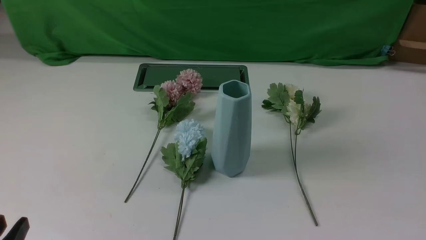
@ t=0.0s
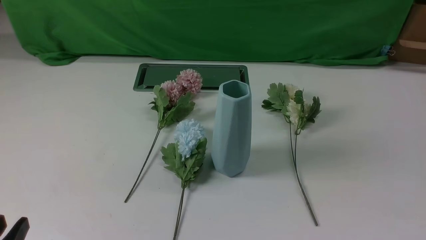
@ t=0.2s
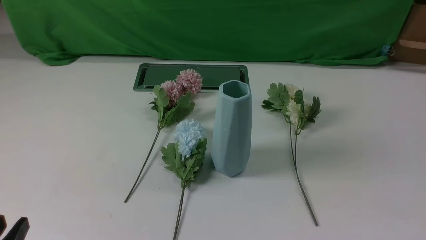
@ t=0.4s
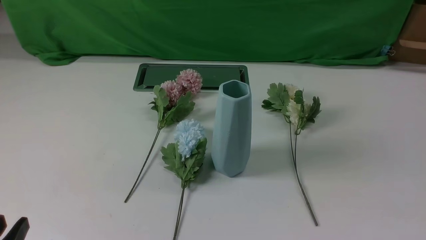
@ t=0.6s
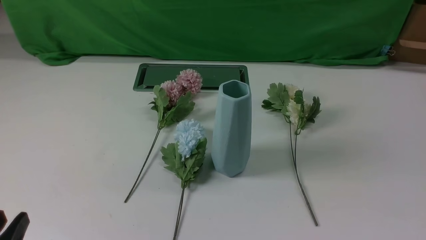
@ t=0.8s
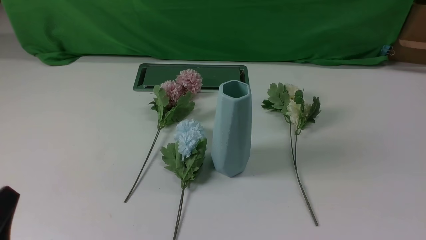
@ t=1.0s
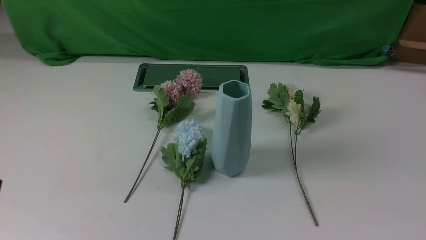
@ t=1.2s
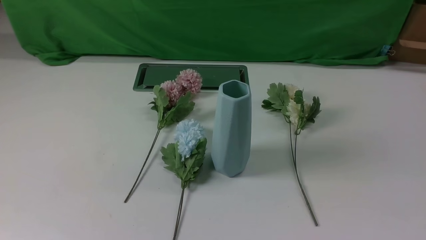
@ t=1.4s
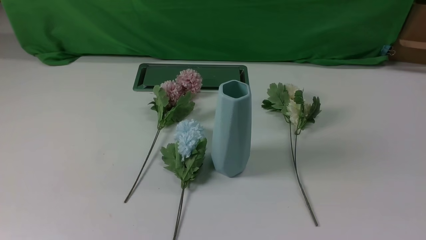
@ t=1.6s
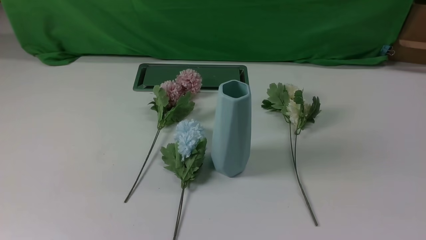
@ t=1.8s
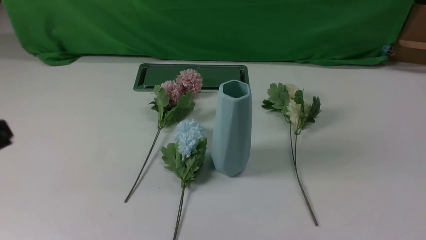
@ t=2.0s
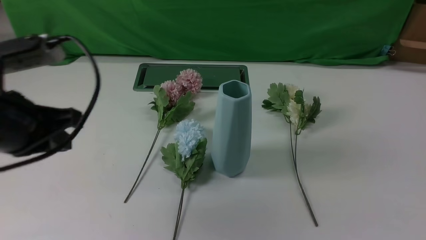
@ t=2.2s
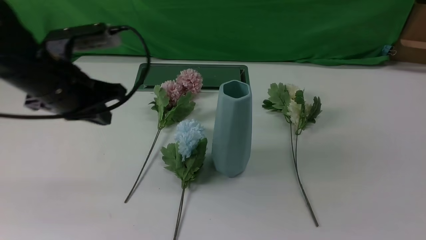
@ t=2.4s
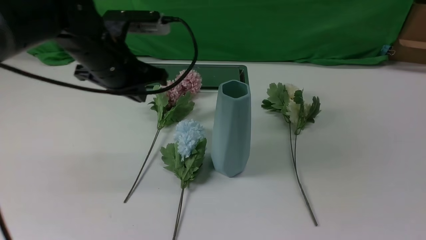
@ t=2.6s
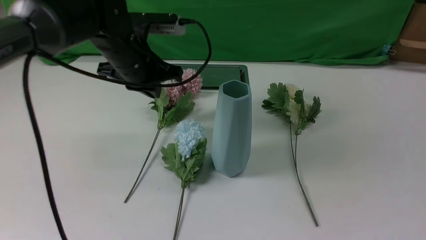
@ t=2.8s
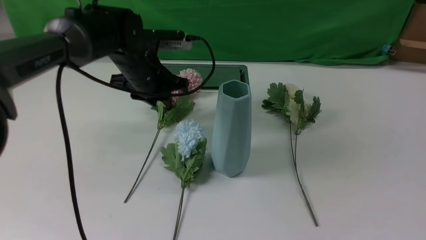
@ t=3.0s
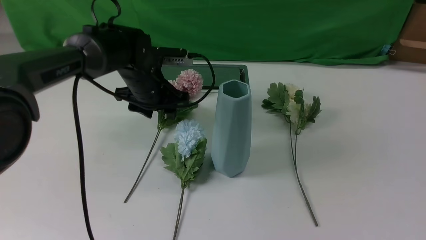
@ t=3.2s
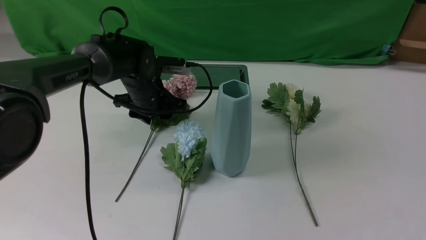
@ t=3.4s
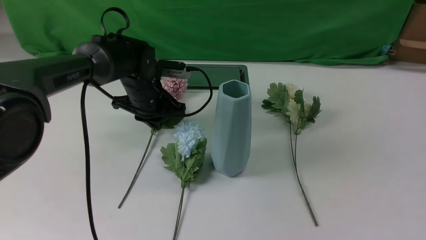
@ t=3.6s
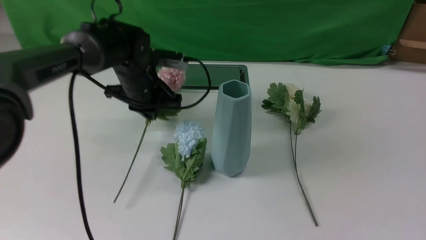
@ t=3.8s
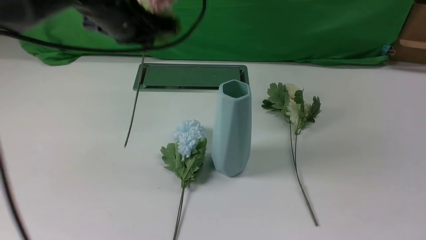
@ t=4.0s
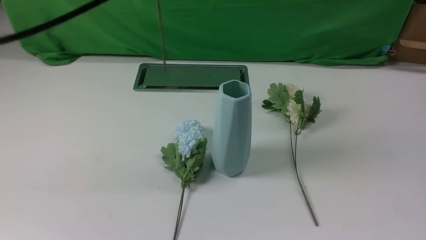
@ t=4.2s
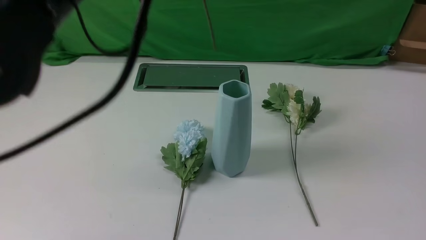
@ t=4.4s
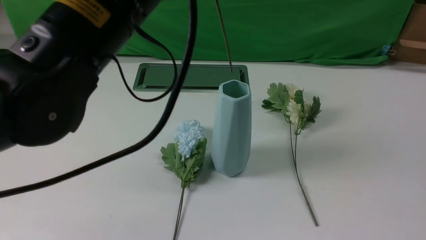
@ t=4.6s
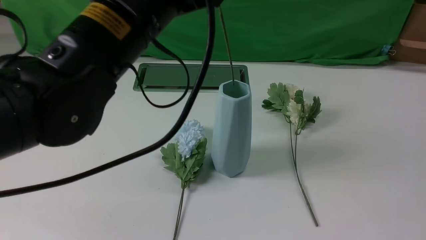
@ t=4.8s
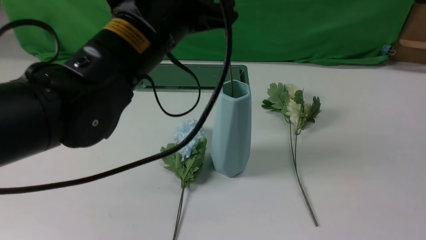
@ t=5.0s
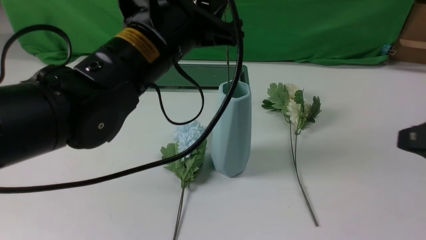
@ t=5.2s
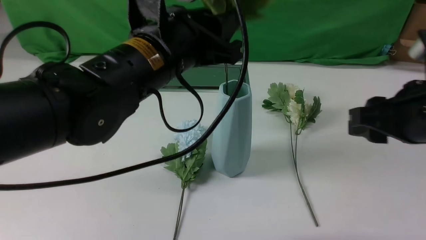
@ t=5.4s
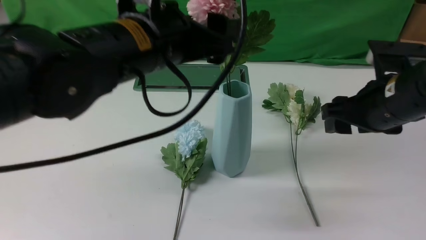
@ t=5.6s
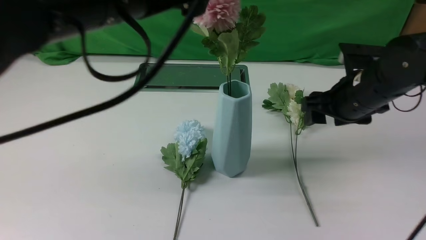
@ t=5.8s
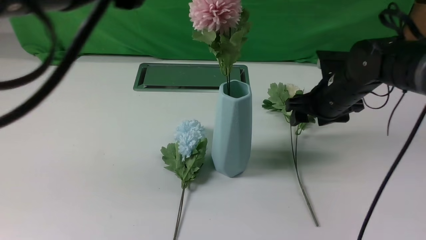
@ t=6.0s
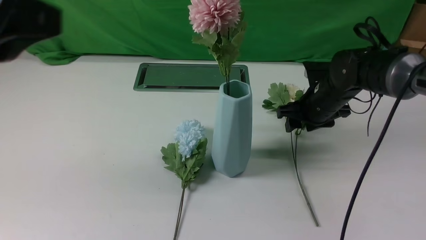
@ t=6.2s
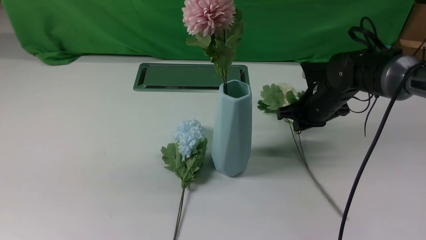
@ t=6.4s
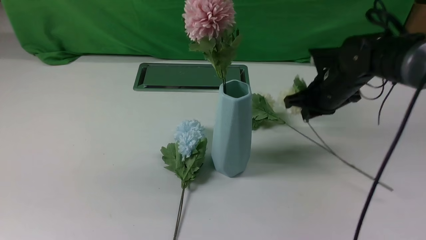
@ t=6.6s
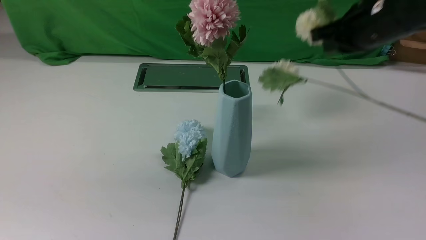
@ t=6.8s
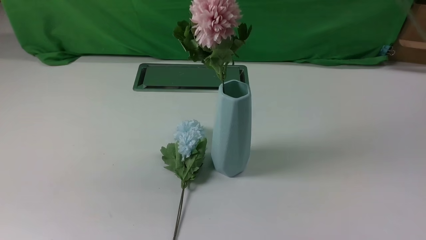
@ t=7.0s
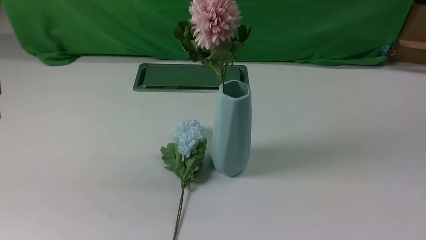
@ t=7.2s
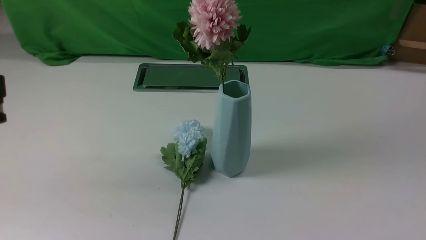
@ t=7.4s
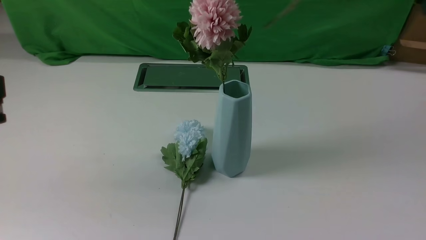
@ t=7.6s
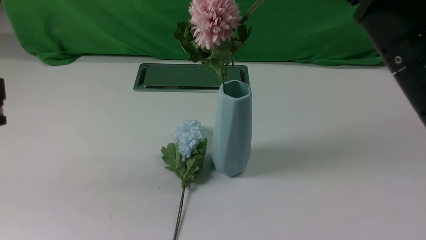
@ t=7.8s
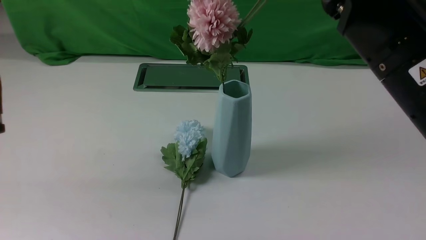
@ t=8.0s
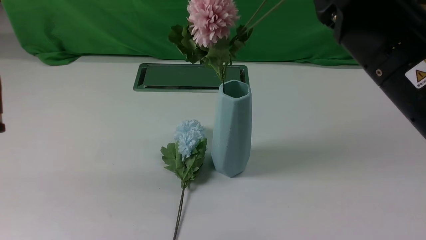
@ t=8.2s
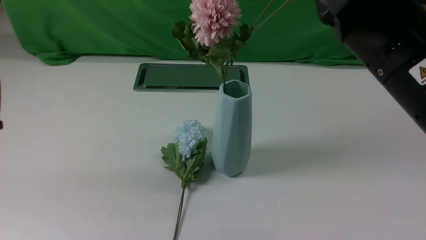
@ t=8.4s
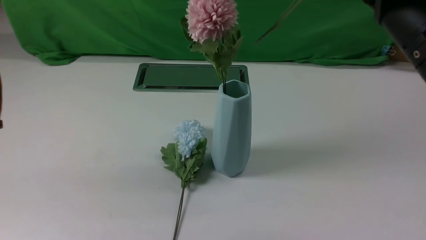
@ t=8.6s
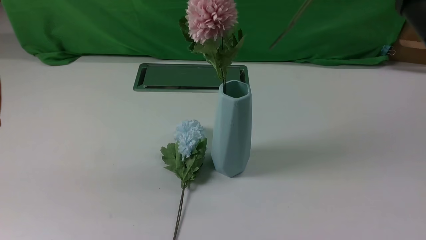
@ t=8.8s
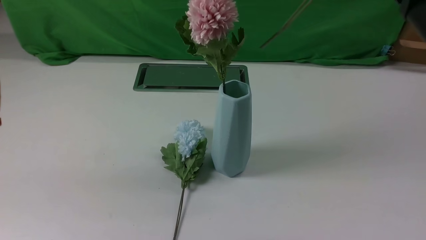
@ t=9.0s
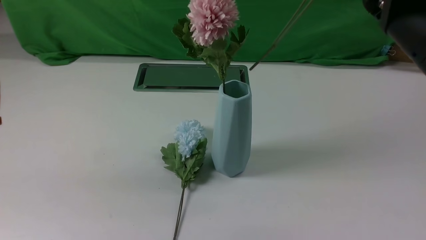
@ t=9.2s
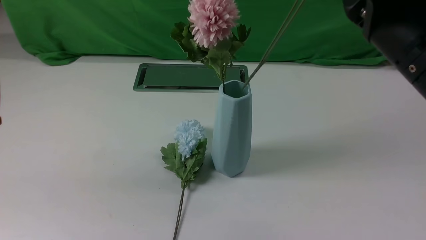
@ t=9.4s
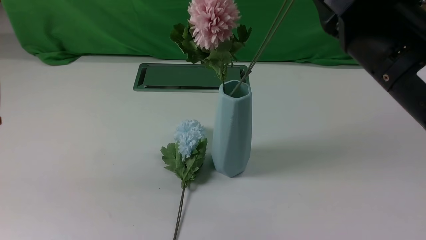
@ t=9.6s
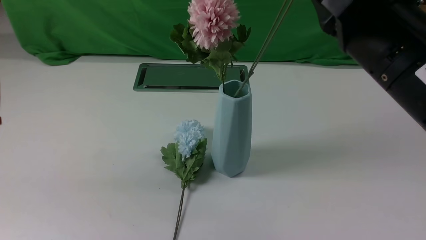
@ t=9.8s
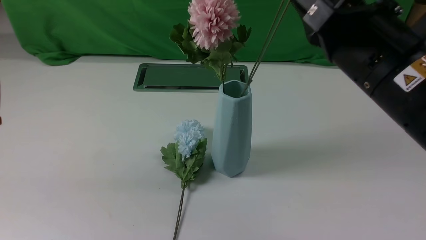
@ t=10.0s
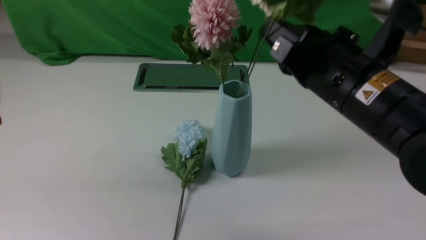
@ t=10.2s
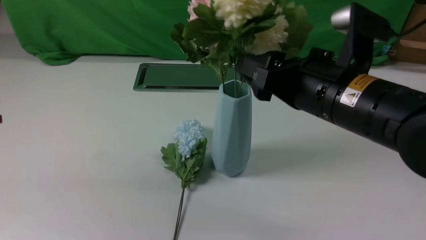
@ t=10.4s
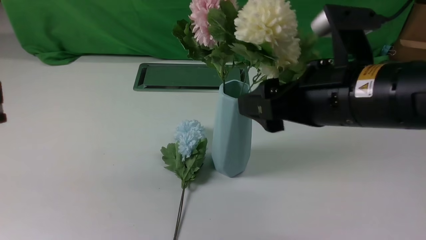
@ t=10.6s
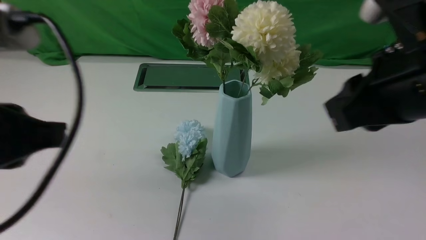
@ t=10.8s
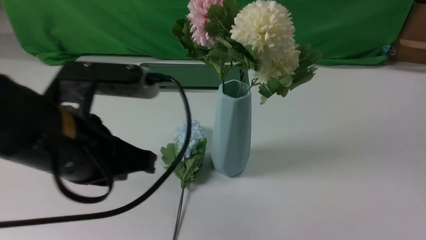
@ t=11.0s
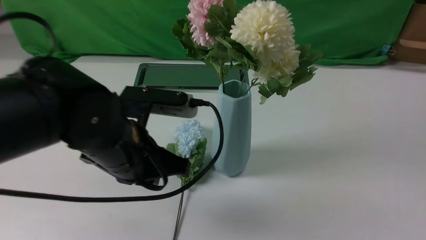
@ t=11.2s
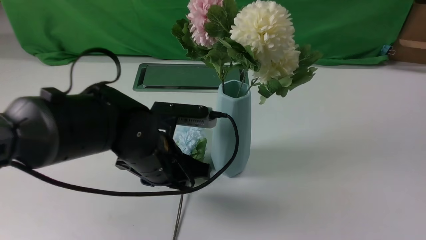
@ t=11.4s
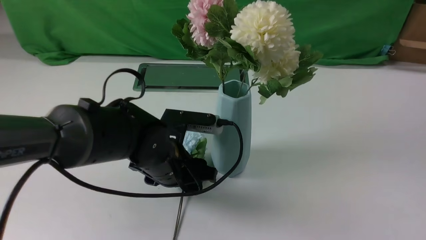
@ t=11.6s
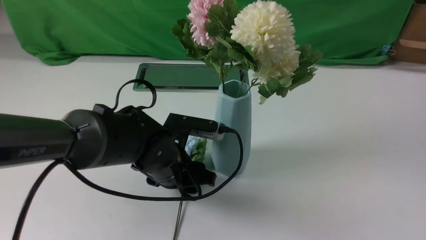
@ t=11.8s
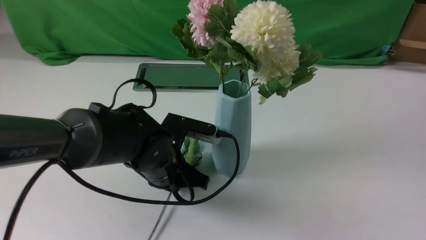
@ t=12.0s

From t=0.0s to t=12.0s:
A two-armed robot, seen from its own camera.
Task of the whole recording: insert the flowers into the vase on the white table.
Step, from t=0.0s to t=3.6s: use the left arm to grab a bunch of fresh flowers.
Step, from t=3.8s to t=5.4s: use the left arm to insert the flowers into the vase.
Step, from t=5.6s to t=6.4s: use the right arm to grab a bunch of fresh flowers.
Step, from t=6.6s to t=10.4s: use the right arm to insert the flowers into the vase.
Step, from t=10.6s to t=11.8s: use the left arm to grab a bunch of fresh flowers.
From t=1.6s to t=3.0s: The left gripper heads forward, covering some 40 cm, while the right gripper heads upward, covering approximately 15 cm.
From t=3.0s to t=4.4s: The left gripper goes some 30 cm upward and backward, and closes.
From t=4.4s to t=6.0s: The left gripper shifts some 10 cm backward, and opens its fingers; the right gripper is displaced forward and downward by about 35 cm, and opens its fingers.
From t=6.0s to t=7.6s: The left gripper moves backward and to the left, about 10 cm, and closes its fingers; the right gripper is displaced upward and backward by approximately 30 cm, and closes up.
From t=7.6s to t=9.0s: The grippers move only a little.
From t=9.0s to t=10.4s: The right gripper shifts about 10 cm downward and to the left, and opens up.
From t=10.4s to t=12.0s: The right gripper travels to the right, backward and upward by some 30 cm, and closes up, while the left gripper moves downward, forward and to the right, approximately 30 cm, and opens, then closes once more.

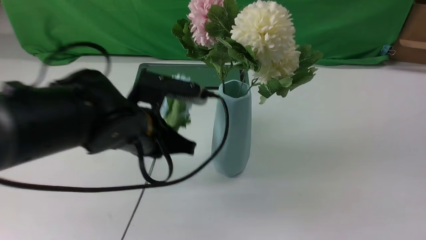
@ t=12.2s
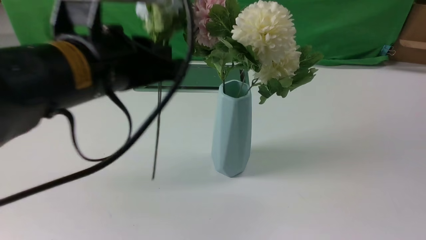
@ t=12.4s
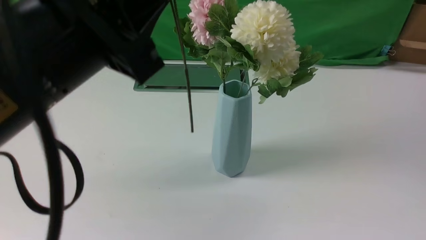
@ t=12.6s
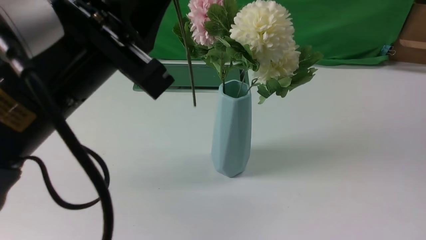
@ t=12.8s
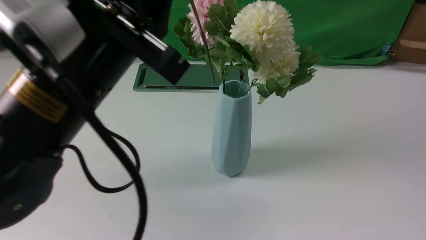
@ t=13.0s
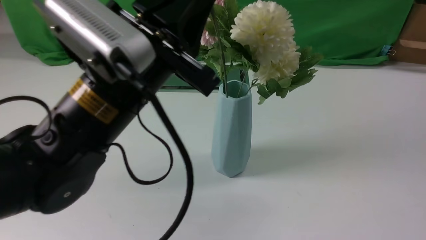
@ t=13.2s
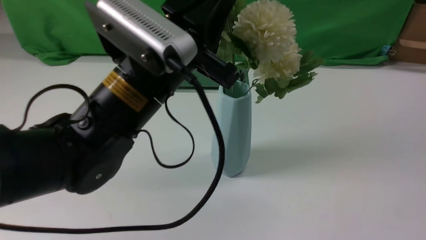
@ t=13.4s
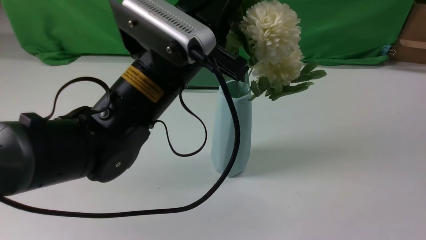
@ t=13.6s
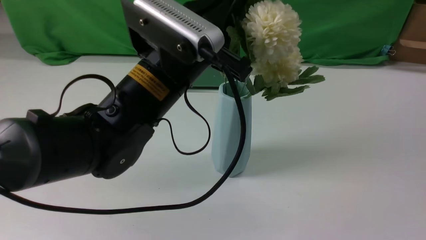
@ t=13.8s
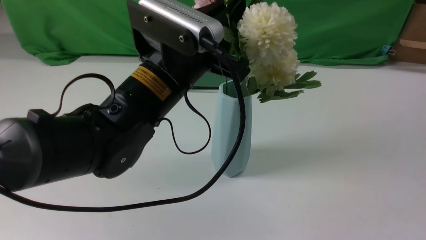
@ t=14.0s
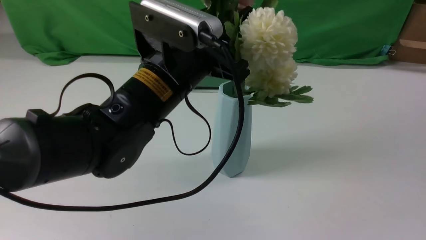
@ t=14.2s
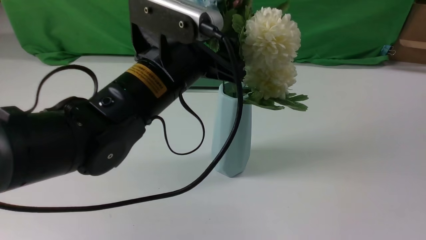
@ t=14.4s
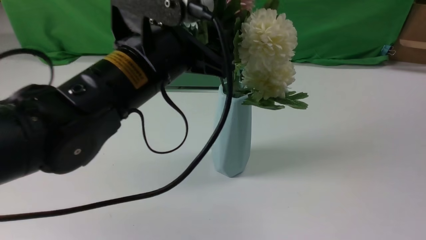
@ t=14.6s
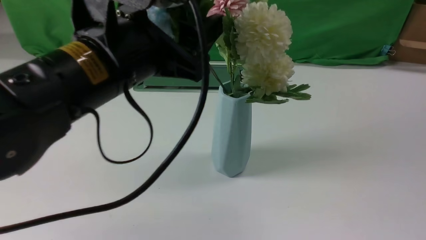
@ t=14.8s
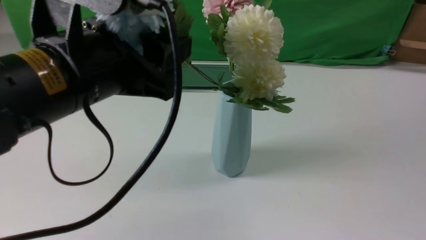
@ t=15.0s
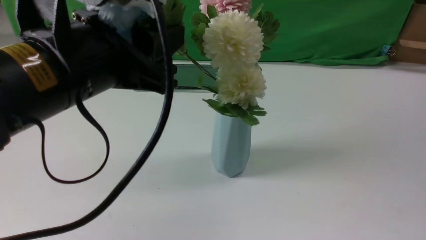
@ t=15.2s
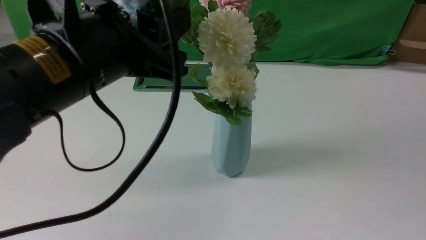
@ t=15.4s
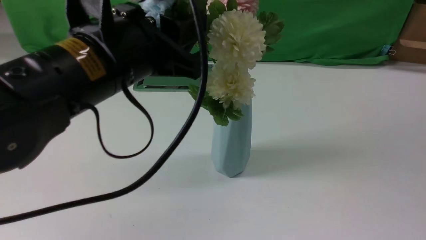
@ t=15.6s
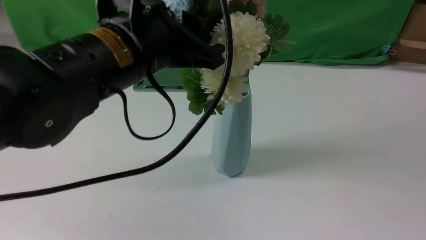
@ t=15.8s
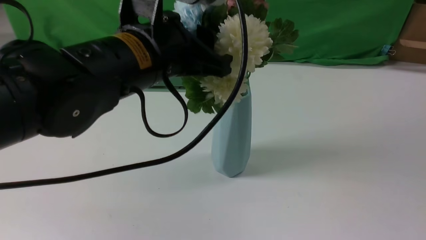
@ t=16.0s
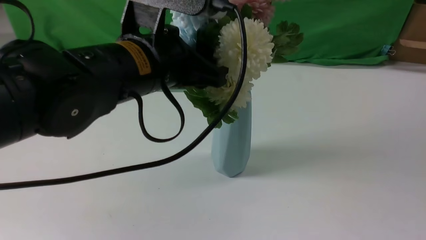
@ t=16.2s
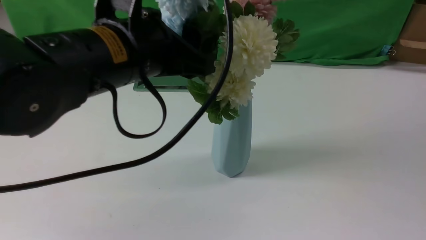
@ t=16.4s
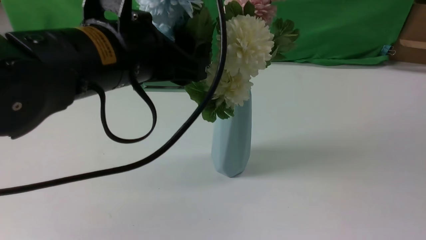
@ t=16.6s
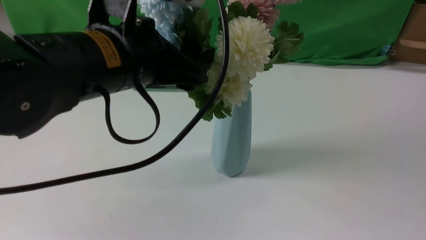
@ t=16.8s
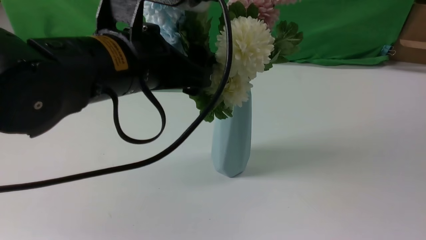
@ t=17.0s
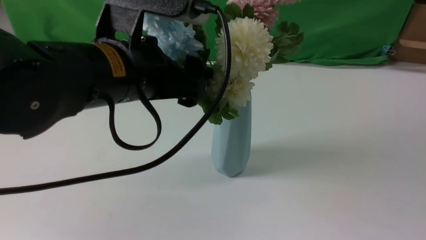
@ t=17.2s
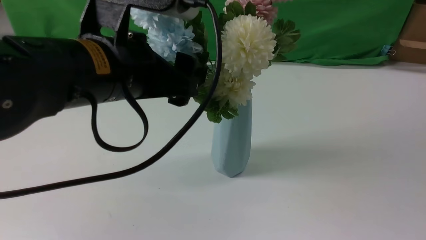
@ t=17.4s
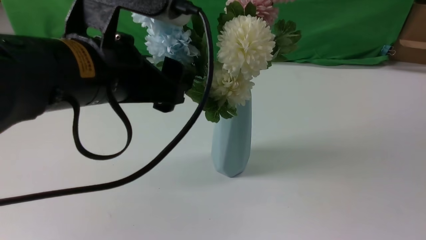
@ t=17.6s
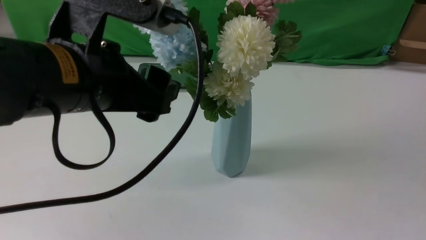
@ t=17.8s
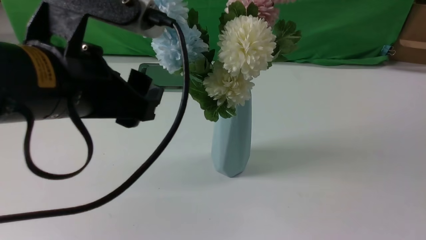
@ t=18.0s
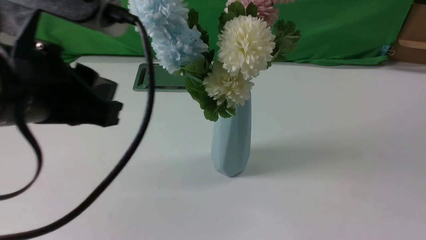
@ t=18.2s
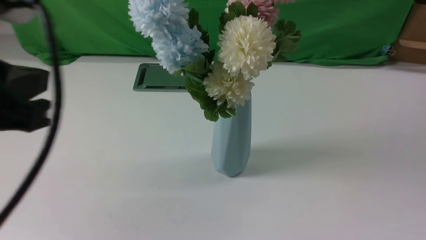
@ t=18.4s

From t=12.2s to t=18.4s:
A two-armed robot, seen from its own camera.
Task of the whole recording: insert the flowers into the vase on the white table.
Step, from t=12.2s to t=17.6s: use the left arm to insert the flowers into the vase.
From t=13.8s to t=15.4s: The left gripper goes some 10 cm backward, upward and to the left, and opens, then closes again.
From t=15.4s to t=16.8s: The left gripper opens its fingers.
From t=16.8s to t=18.4s: The left gripper heads backward and to the left, covering some 15 cm, and closes.
